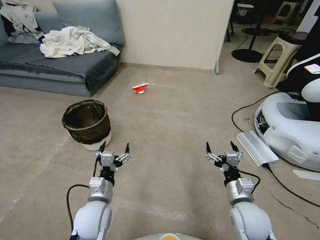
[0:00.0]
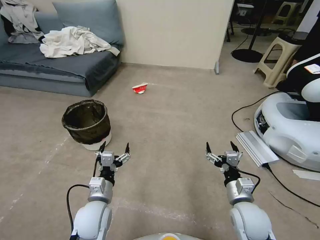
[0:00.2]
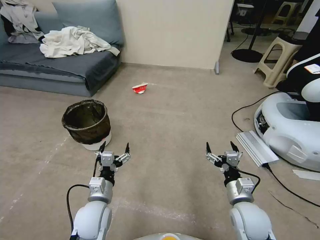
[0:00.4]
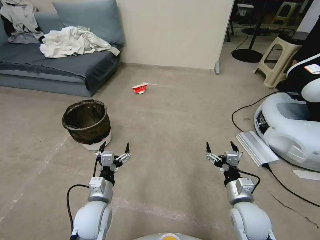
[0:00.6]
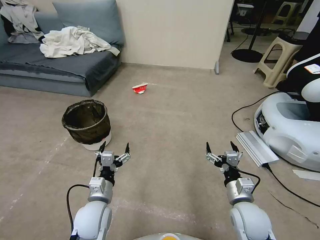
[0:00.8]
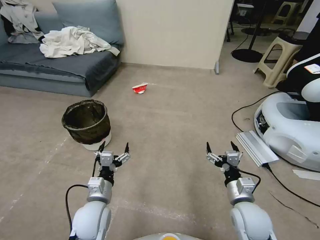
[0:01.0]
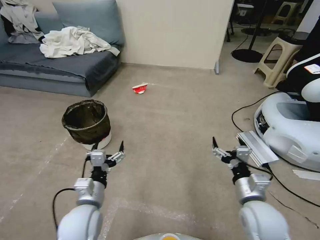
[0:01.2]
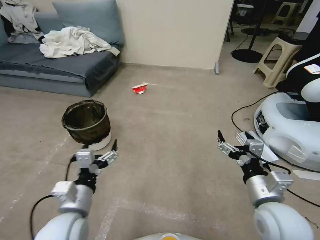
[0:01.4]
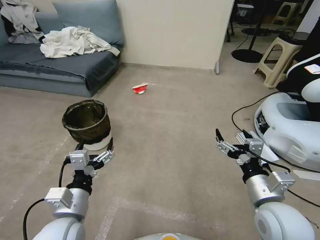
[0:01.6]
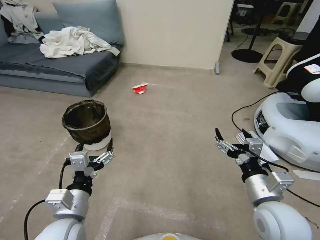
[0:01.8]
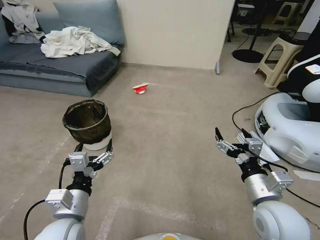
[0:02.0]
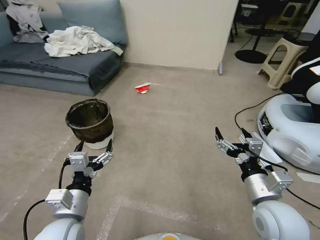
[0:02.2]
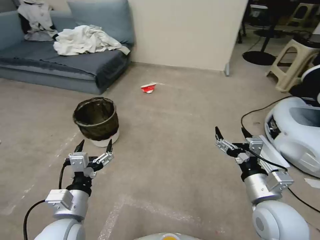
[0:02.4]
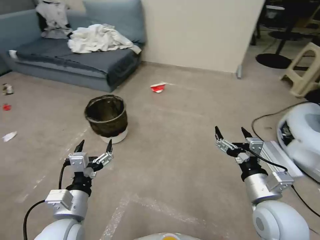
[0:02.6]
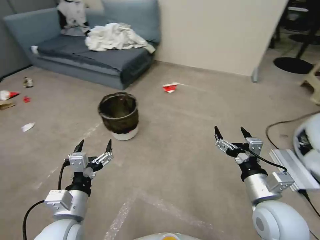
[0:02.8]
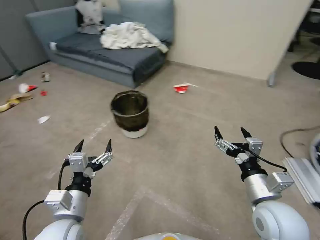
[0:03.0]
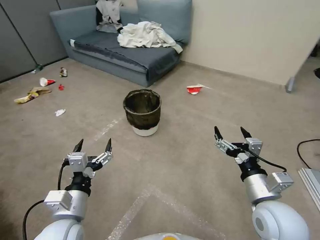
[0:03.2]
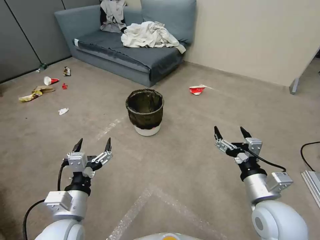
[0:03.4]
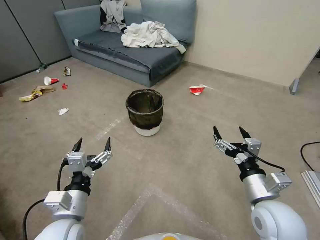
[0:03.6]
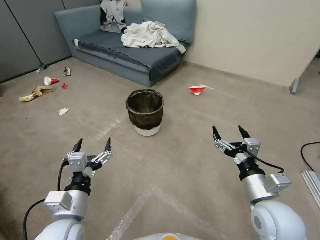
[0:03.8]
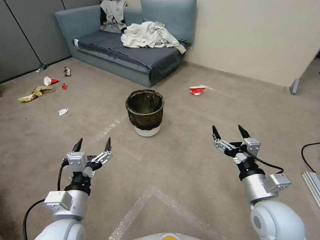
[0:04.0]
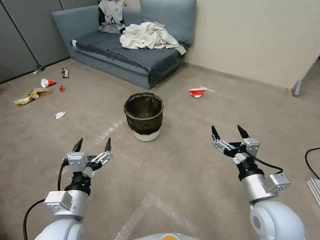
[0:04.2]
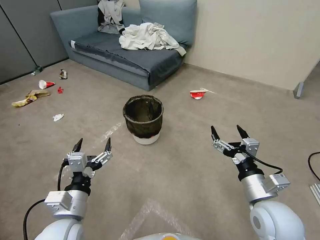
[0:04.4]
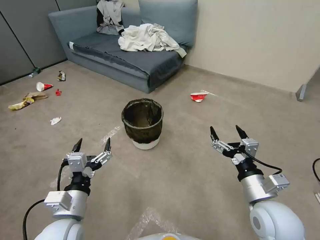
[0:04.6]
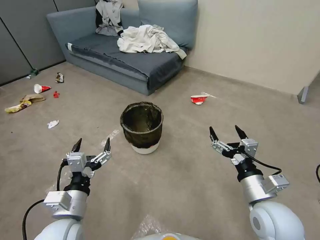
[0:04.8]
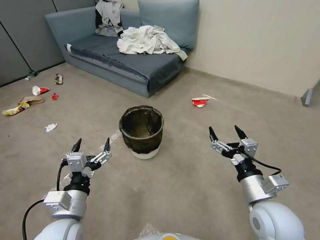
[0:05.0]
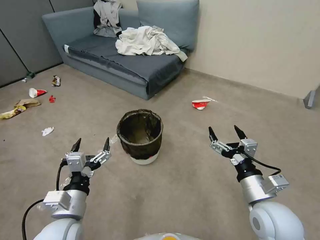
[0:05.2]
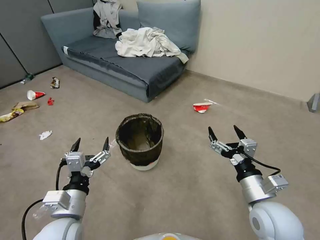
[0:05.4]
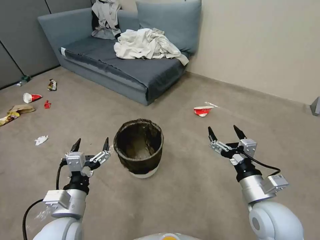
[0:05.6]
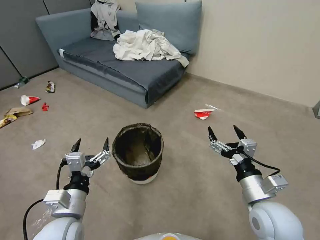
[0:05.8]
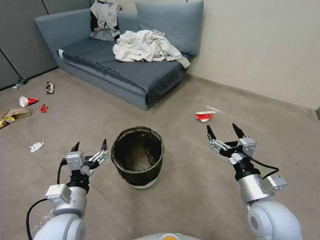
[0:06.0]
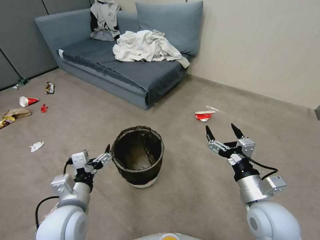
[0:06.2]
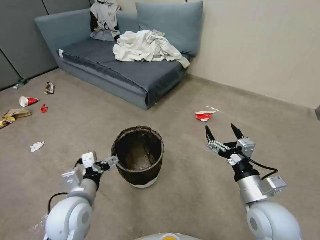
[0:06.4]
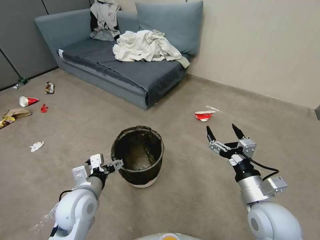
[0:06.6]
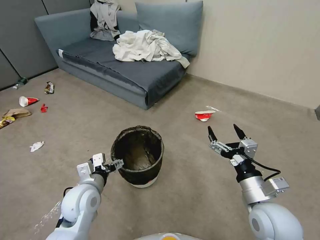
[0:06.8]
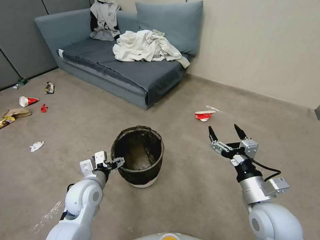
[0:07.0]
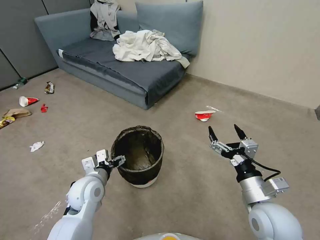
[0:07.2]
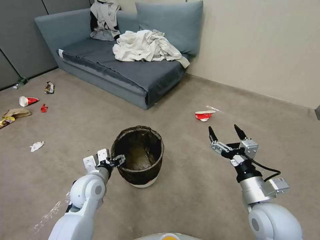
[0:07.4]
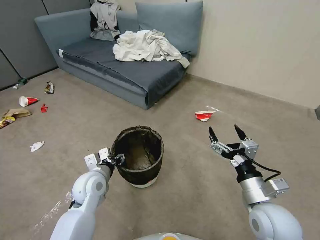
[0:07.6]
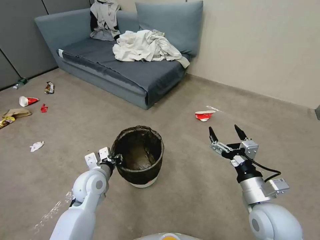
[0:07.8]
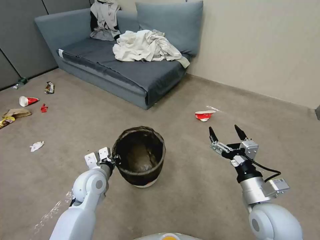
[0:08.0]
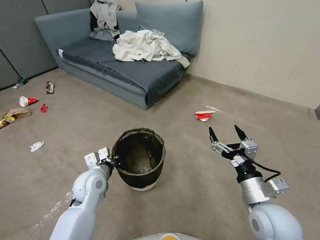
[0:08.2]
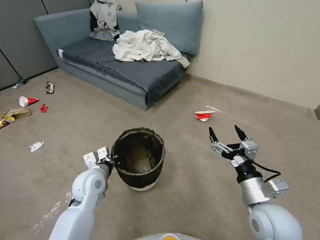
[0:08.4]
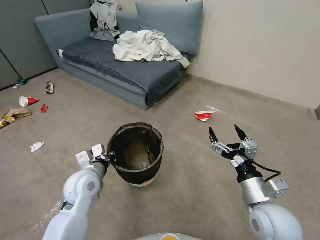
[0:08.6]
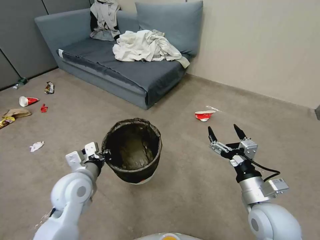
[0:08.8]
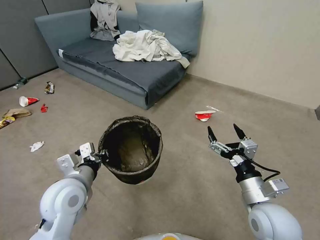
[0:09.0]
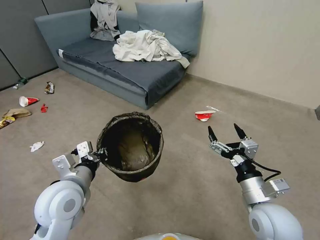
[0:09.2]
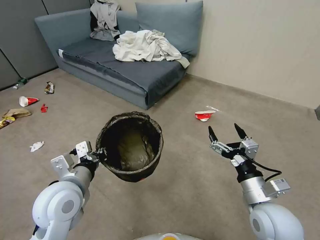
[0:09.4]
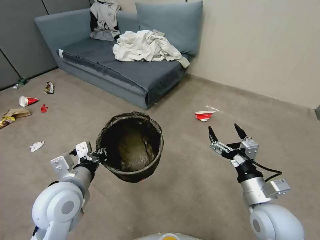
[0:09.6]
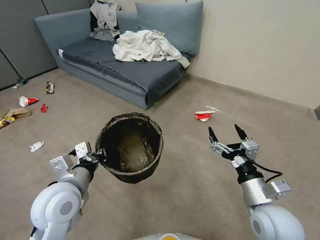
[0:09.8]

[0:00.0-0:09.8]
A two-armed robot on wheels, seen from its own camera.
Task of the whole recording: Pick up the trash can from the floor.
0:05.6 to 0:07.0: The left gripper heads forward, covering some 10 cm.
0:07.0 to 0:08.4: The left gripper closes.
0:08.4 to 0:09.8: The left gripper heads upward and backward, covering about 15 cm.

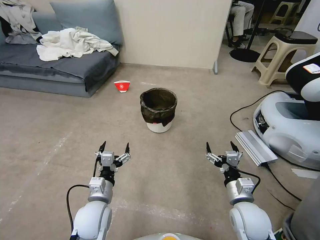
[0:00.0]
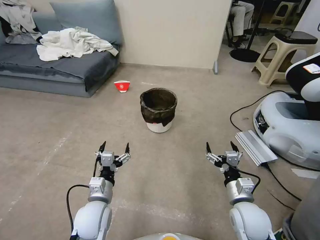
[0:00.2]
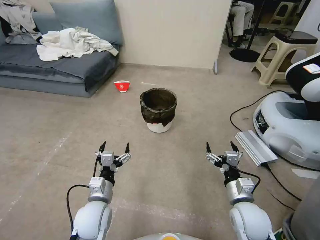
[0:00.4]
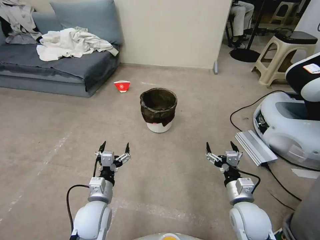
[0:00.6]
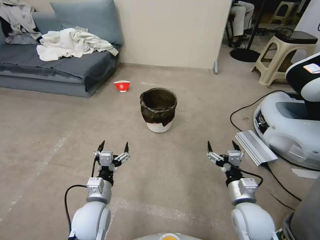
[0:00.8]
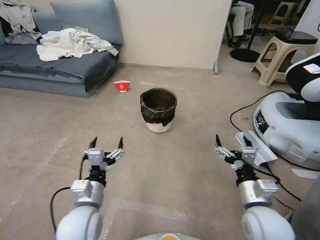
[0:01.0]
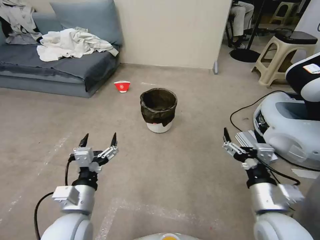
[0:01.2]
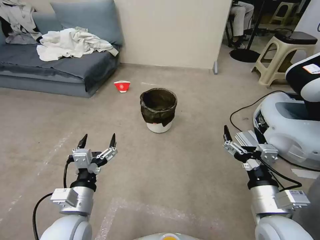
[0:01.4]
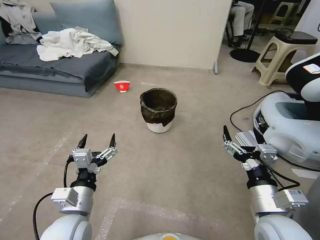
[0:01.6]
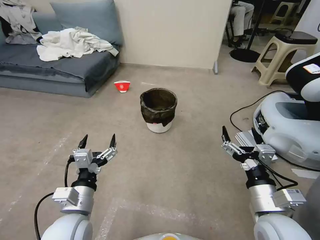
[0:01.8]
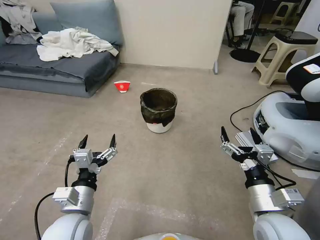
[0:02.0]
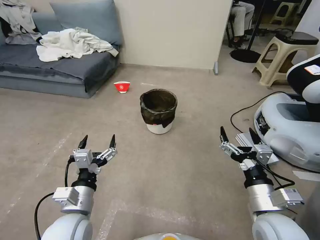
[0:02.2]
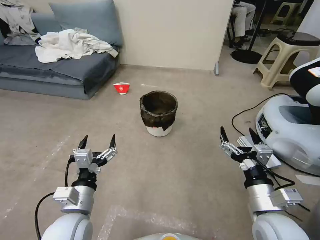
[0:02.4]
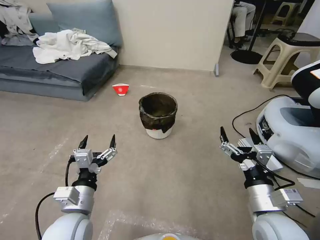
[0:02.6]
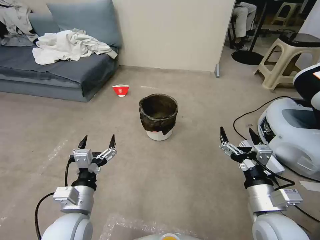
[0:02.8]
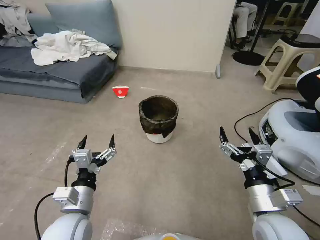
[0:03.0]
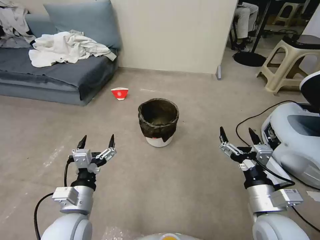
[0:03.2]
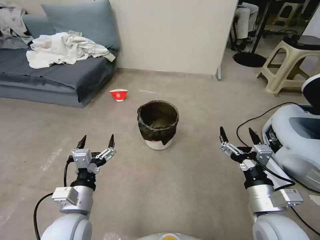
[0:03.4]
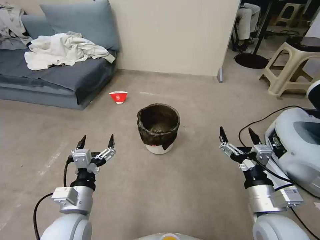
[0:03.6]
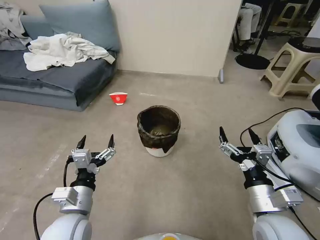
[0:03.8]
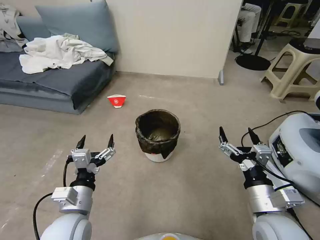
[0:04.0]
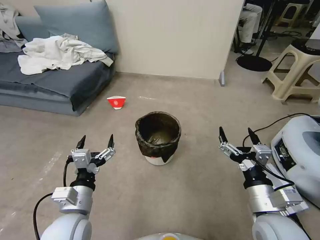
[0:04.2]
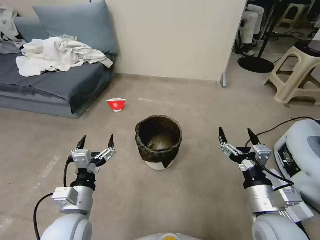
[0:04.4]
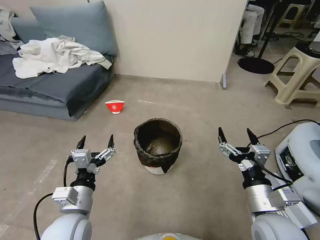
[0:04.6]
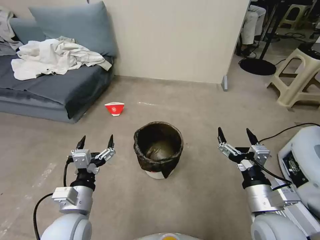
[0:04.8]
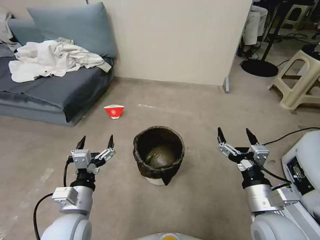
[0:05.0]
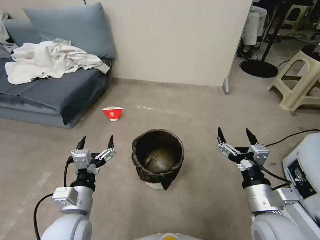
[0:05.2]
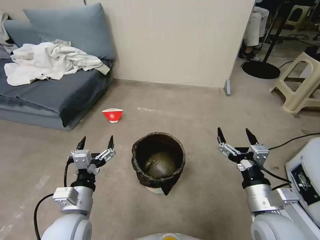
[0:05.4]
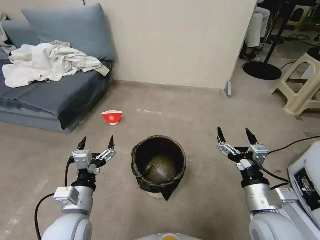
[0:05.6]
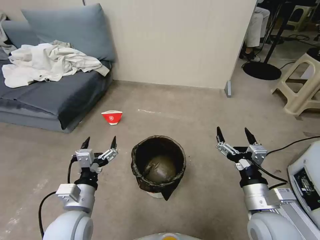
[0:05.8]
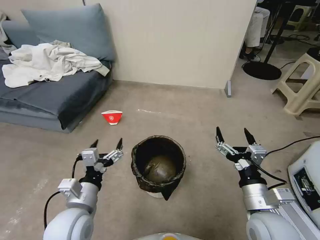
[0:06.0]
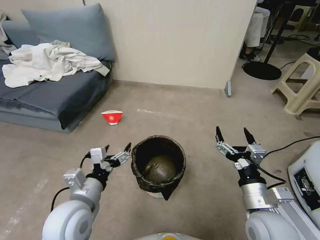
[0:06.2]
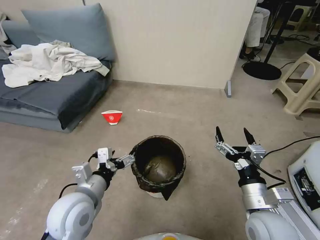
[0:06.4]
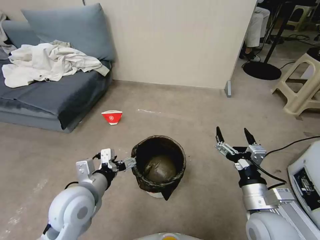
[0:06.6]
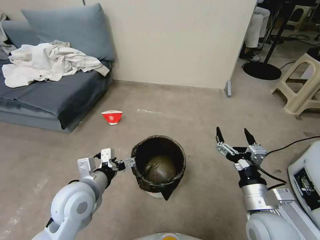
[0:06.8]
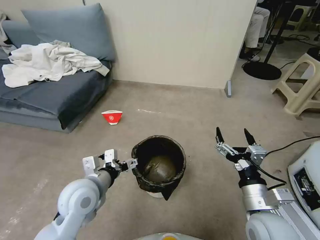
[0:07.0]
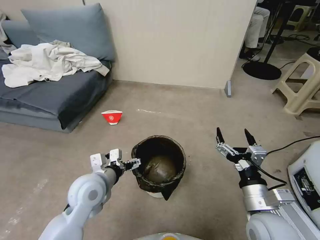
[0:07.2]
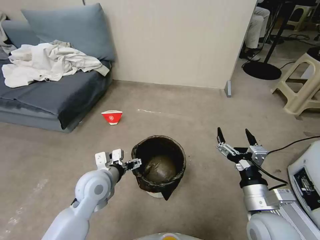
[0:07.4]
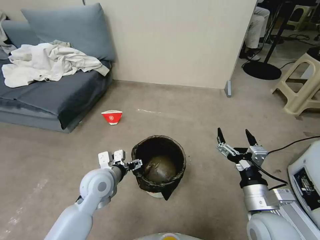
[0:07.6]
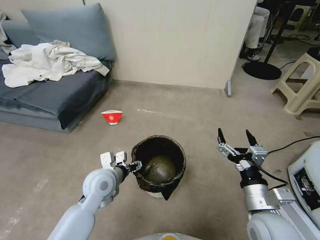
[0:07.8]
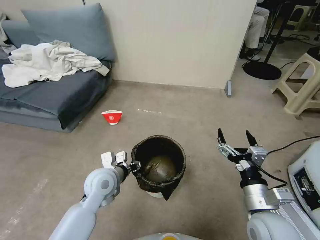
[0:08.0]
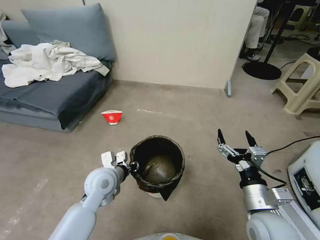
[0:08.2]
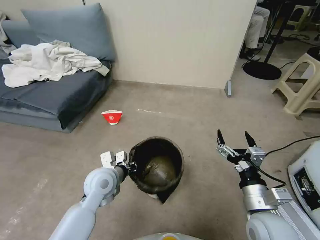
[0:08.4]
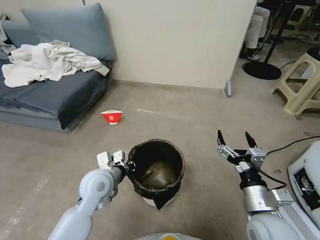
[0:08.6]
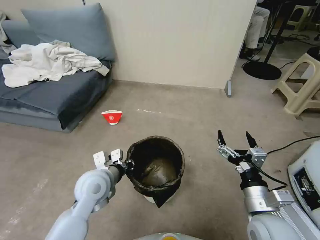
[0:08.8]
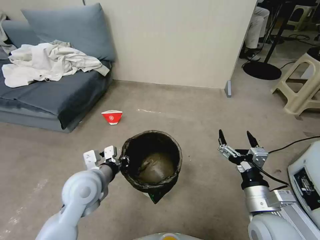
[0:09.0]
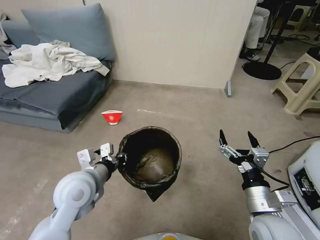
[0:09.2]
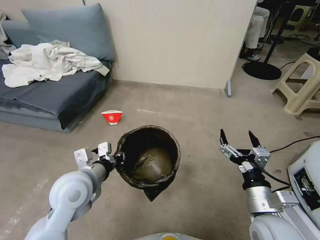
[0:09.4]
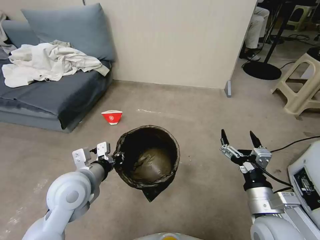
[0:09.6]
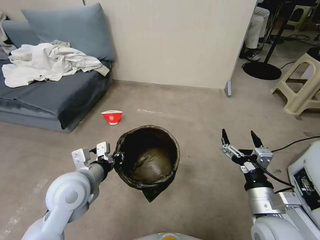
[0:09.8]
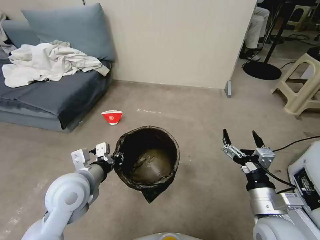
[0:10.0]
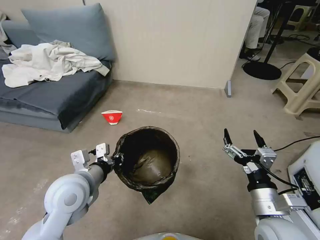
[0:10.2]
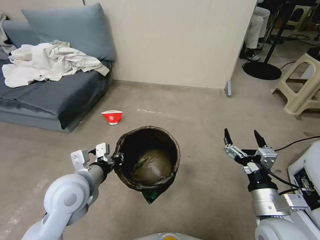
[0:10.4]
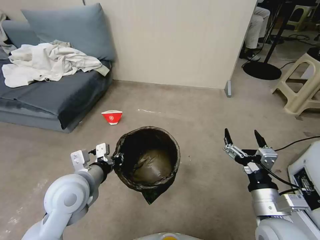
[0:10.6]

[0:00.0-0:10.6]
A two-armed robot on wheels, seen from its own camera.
Task of the whole recording: Pick up the trash can from the floor.
0:06.0 to 0:07.6: The left gripper is displaced forward by approximately 10 cm.
0:07.6 to 0:09.0: The left gripper ends up approximately 5 cm from where it was, and closes.
0:09.0 to 0:10.6: The grippers make only small movements.
